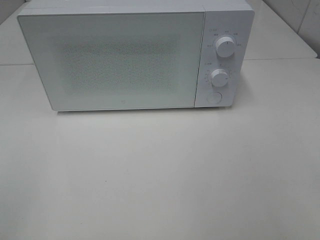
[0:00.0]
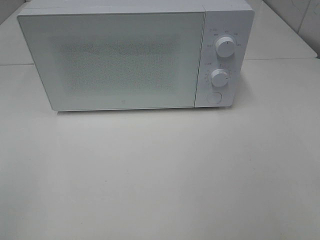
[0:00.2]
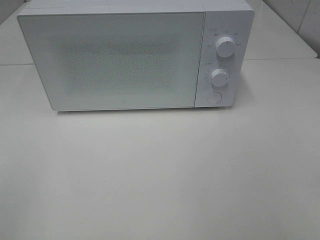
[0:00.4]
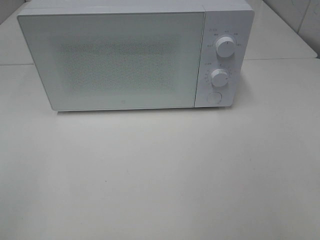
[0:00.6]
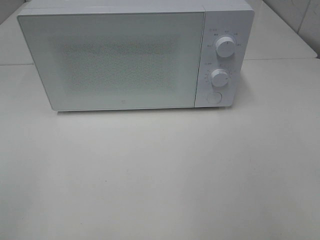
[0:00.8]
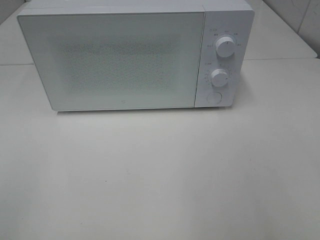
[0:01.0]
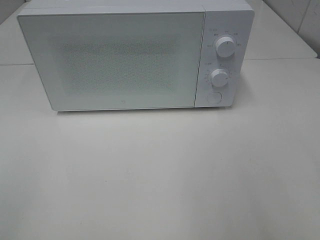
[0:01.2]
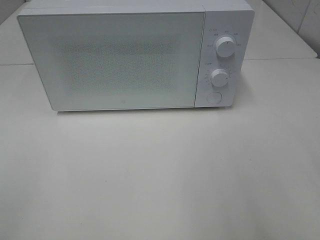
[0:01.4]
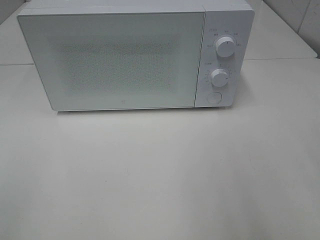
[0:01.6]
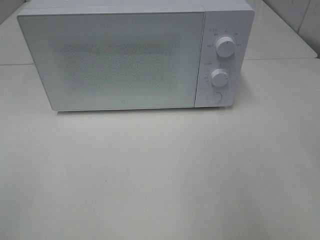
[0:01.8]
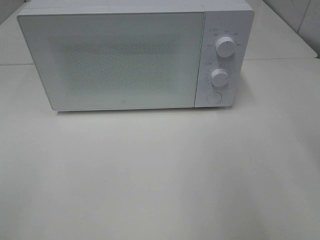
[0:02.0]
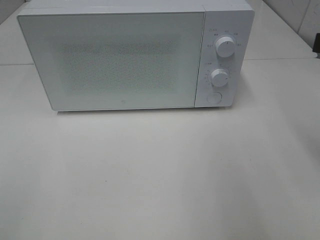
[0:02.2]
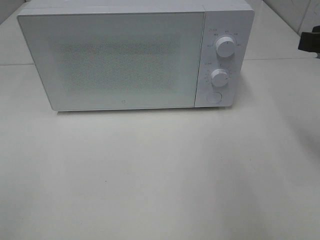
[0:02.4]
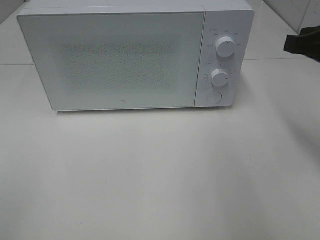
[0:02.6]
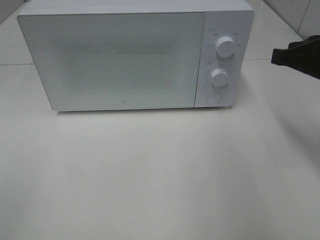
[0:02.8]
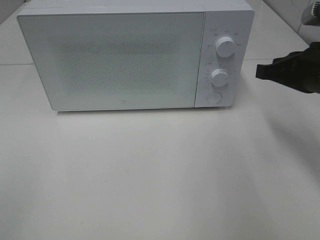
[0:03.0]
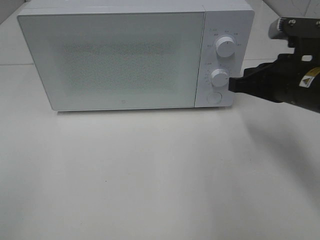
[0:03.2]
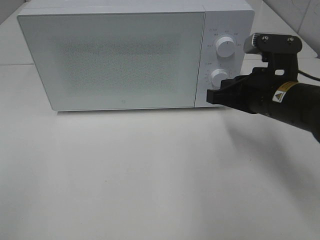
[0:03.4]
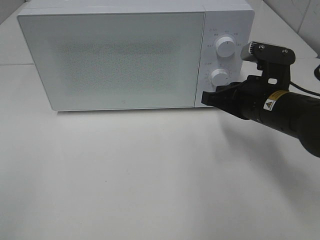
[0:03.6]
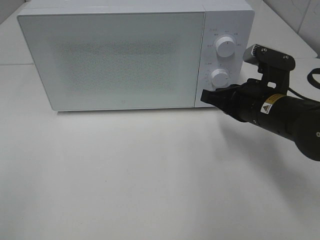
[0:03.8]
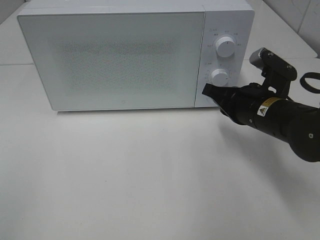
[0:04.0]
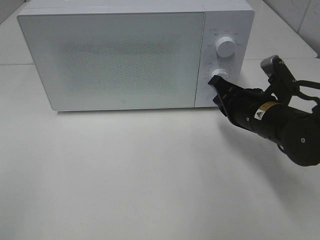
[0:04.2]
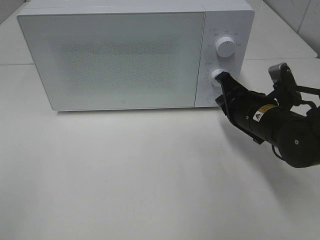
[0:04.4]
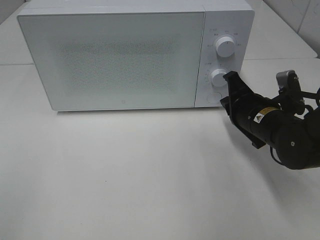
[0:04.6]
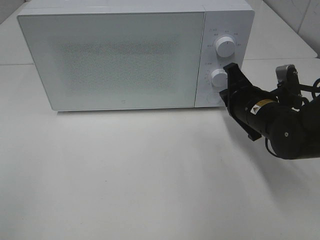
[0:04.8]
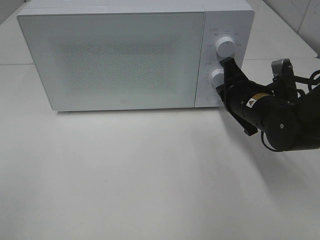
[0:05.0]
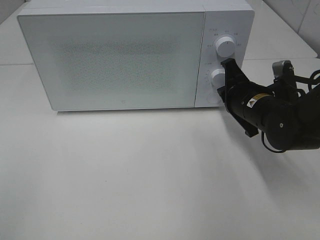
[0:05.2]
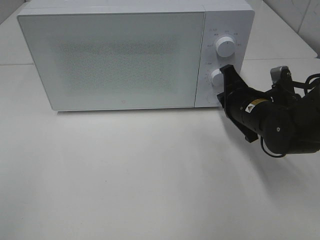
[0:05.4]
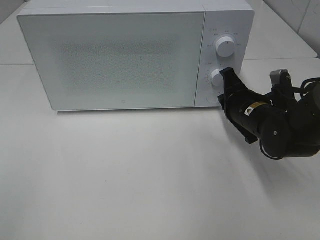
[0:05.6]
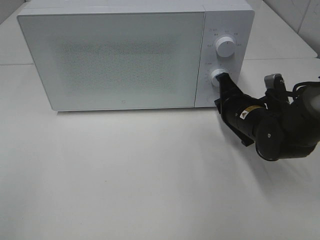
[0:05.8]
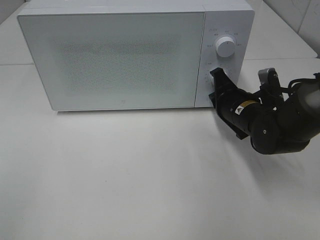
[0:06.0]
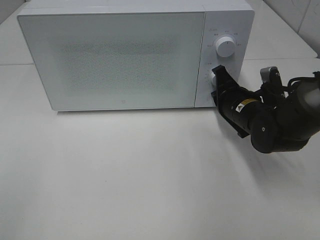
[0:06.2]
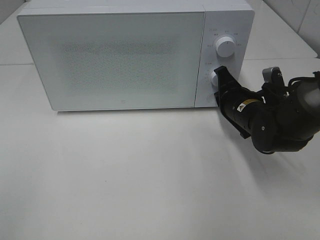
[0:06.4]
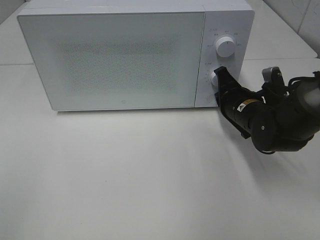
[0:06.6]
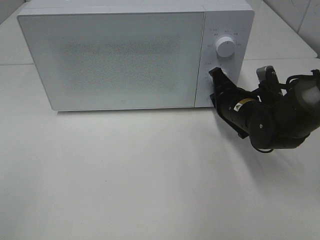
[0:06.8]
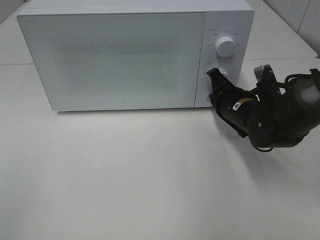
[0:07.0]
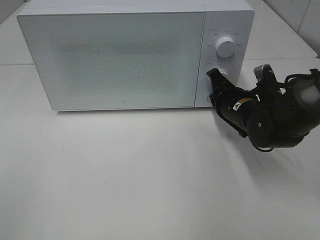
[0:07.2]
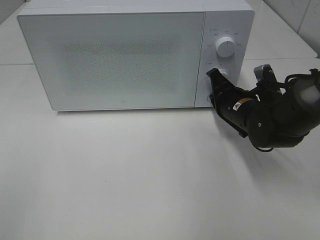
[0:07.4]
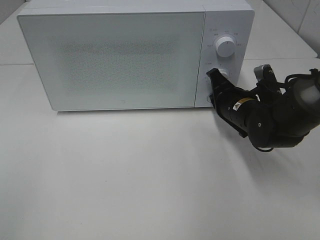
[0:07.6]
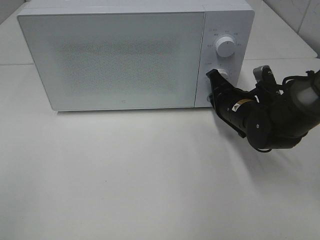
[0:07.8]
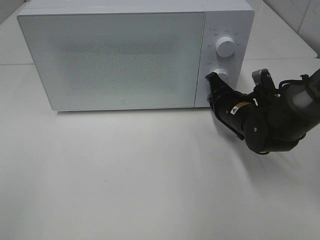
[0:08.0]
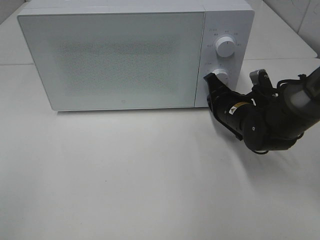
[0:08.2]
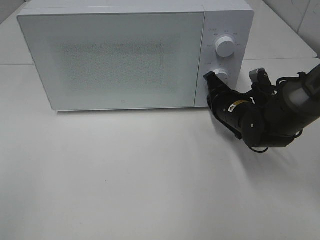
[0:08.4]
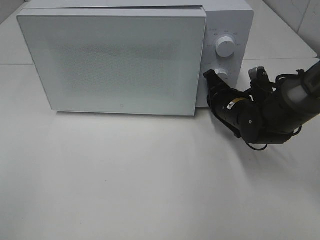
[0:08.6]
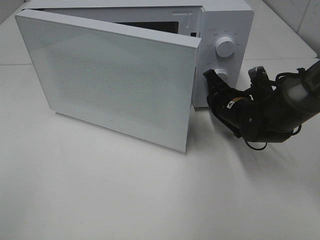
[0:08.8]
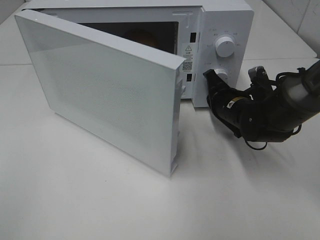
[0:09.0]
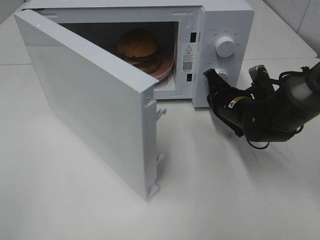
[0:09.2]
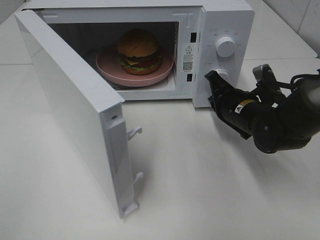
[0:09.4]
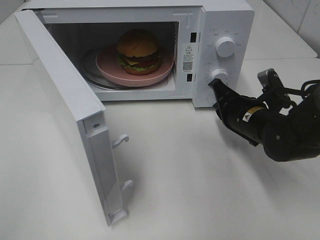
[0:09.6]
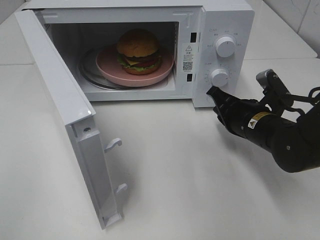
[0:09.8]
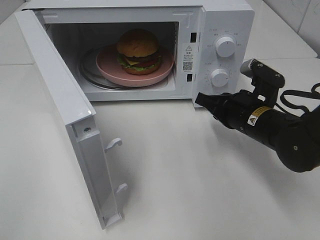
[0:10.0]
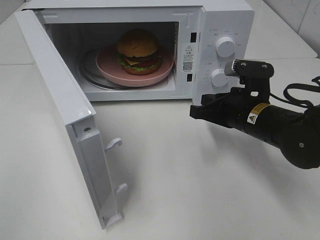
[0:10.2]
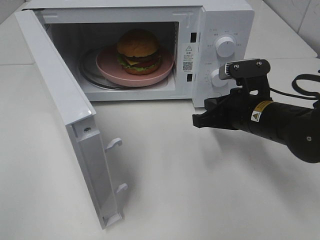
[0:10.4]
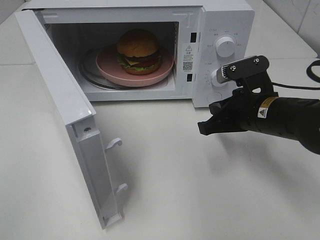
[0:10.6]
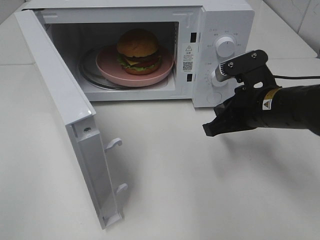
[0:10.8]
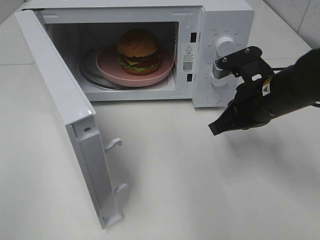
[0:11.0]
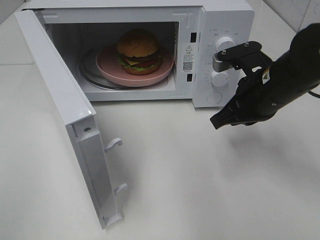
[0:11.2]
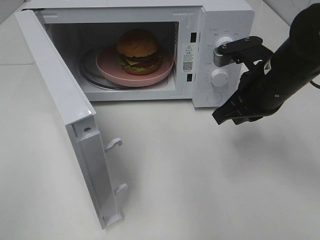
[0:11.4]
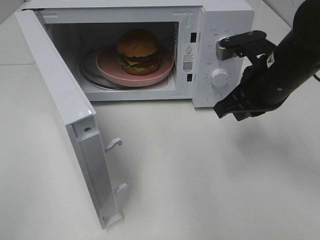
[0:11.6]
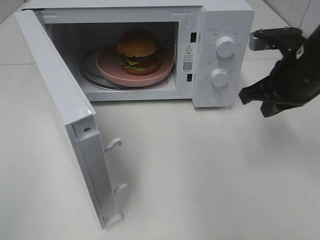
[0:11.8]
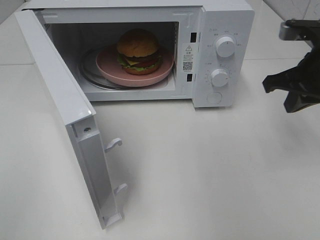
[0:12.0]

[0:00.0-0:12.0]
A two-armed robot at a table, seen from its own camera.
Task of the whole recording: Heat the burger.
Step, 0:00.0 to 0:09.4: Right hand: press the switch.
0:01.6 to 0:03.0: The right gripper is displaced forward and downward by roughly 20 cm, and closes up.
0:03.0 to 0:04.4: The right gripper goes roughly 10 cm downward and to the left.
0:04.4 to 0:07.6: There are only small adjustments of the grippers.
0:07.6 to 0:09.0: The grippers move only a little.
0:09.0 to 0:10.4: The right gripper heads backward, covering about 10 cm.
0:10.4 to 0:12.0: The right gripper is displaced upward and to the right by about 15 cm.

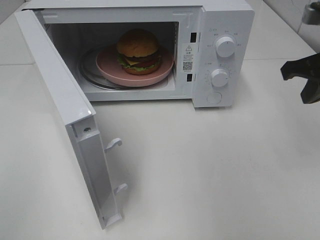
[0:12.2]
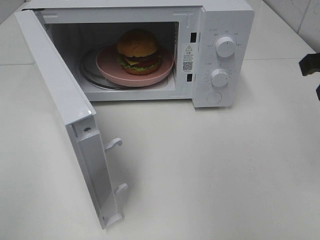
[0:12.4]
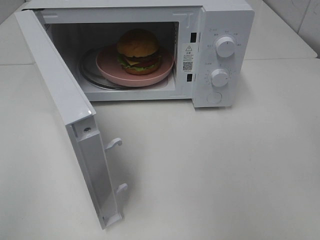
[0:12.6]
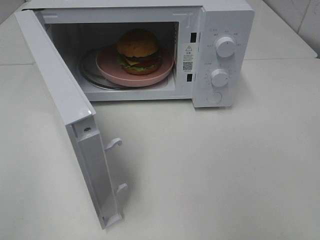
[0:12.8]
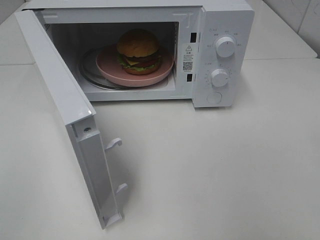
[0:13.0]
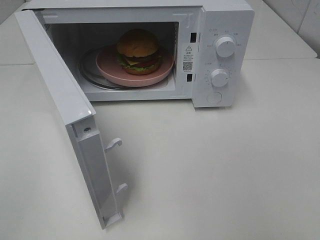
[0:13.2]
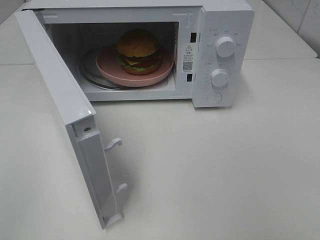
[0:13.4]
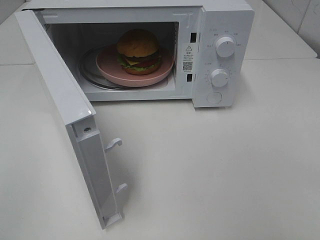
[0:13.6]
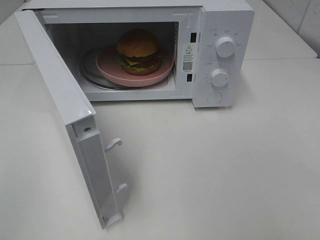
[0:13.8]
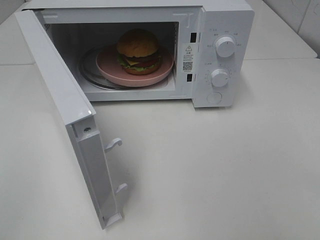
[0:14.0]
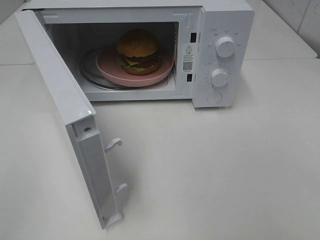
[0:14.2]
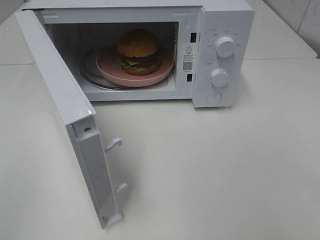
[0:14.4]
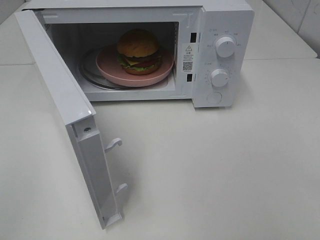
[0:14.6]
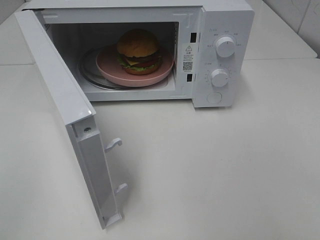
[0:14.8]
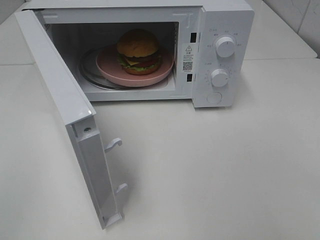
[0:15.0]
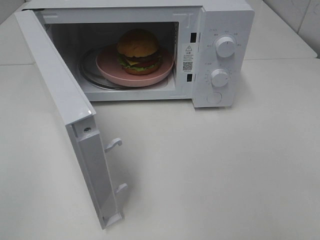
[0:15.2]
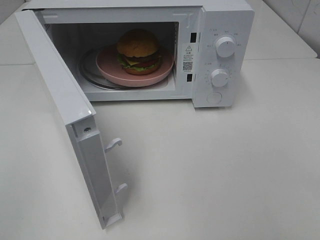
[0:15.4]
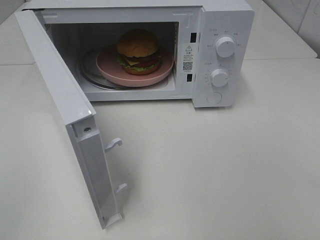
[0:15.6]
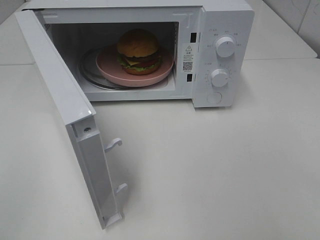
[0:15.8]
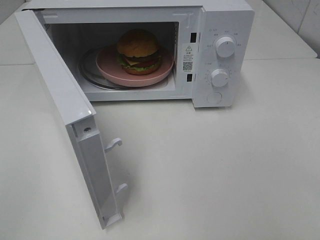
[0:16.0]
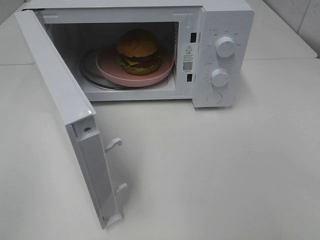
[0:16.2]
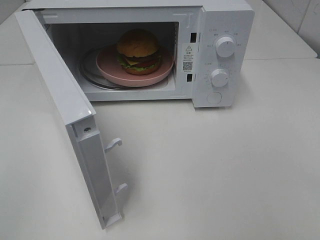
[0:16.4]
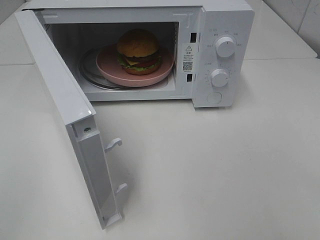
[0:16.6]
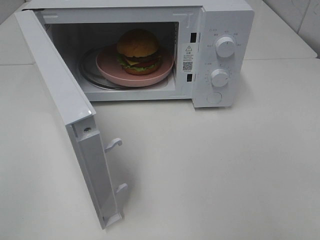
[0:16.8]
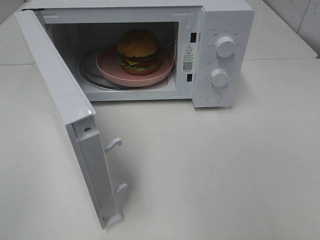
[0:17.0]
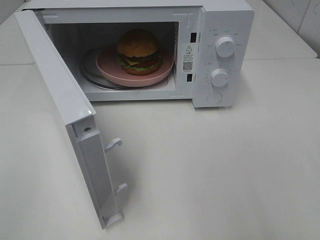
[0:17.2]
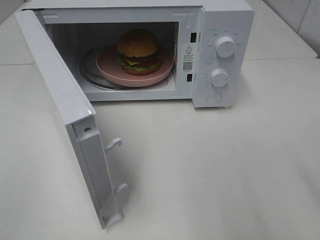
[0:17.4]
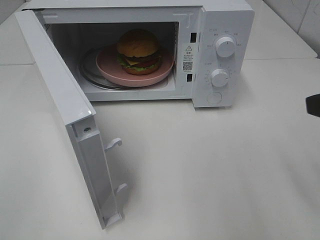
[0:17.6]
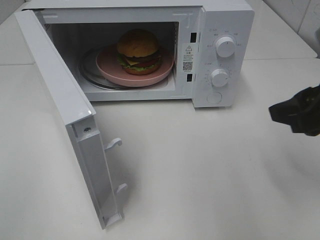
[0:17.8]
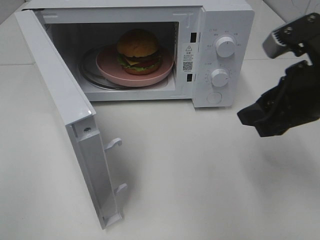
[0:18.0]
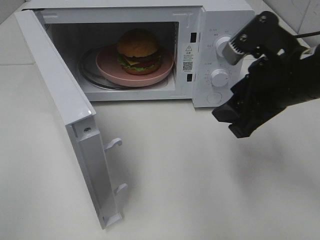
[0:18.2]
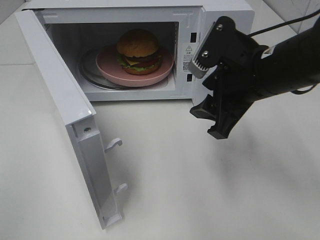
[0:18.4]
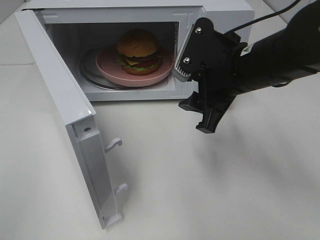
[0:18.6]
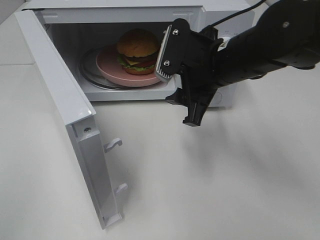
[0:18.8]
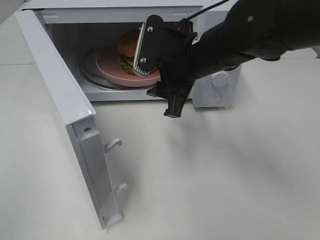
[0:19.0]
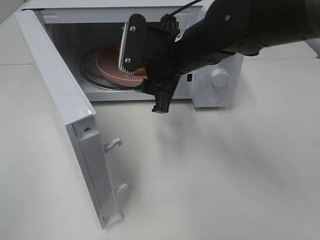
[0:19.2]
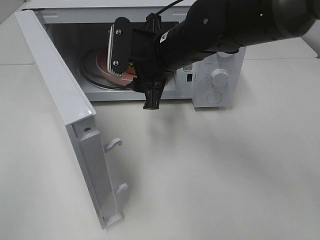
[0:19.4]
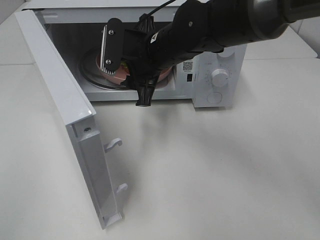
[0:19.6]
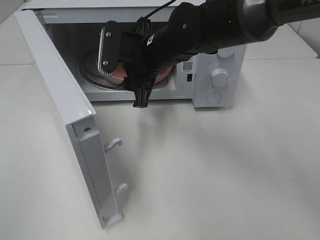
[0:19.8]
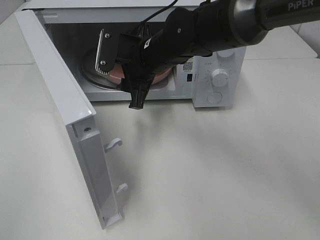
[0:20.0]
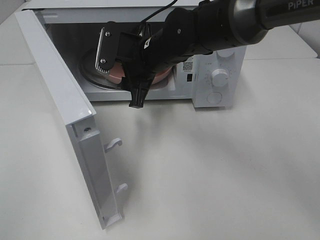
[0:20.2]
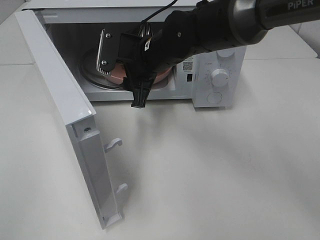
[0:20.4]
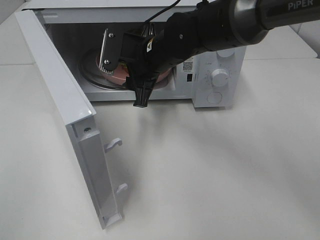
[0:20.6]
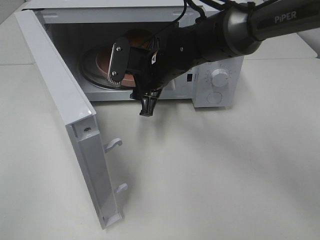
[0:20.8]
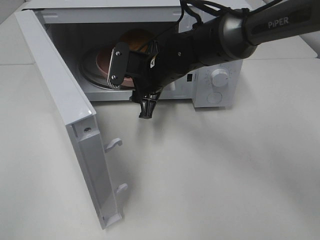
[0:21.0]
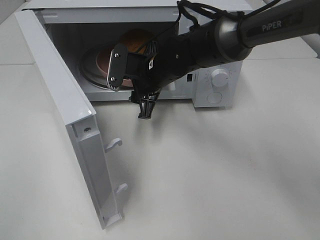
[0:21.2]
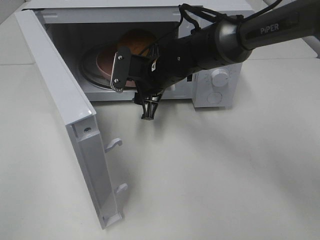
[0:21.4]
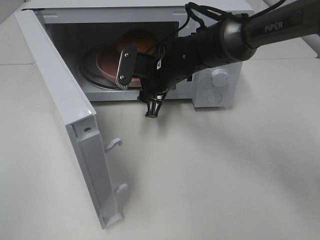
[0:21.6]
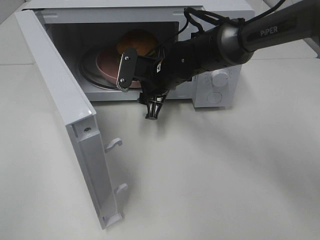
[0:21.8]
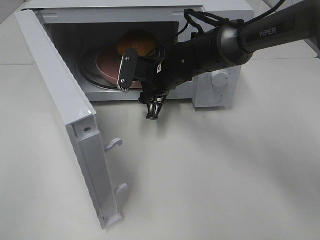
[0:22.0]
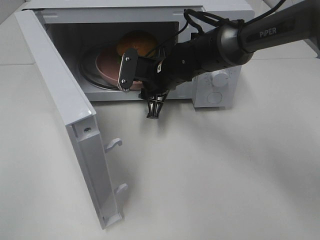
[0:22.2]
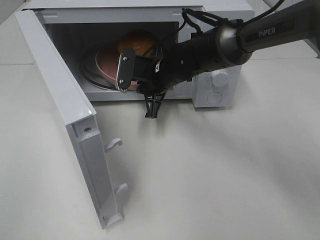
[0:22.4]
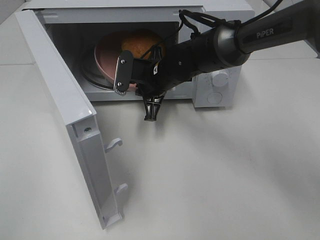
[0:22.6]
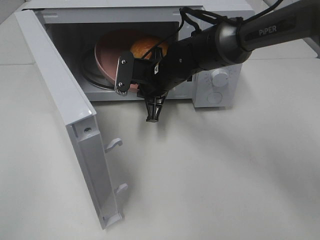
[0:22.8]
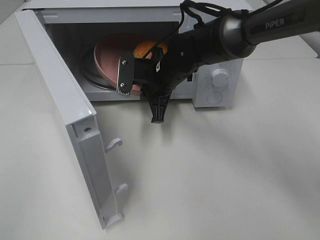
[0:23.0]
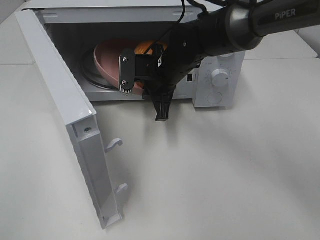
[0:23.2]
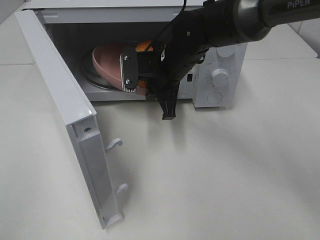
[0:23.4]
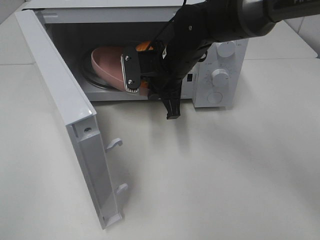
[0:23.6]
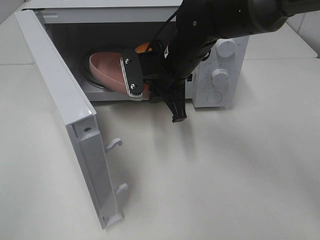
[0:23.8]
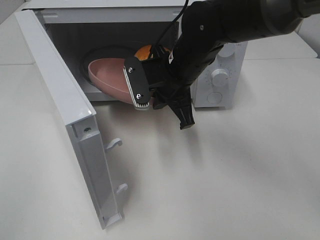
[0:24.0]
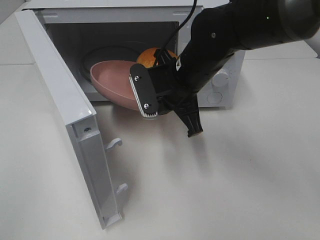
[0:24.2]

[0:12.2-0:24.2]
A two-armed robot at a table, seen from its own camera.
Task of the whole recording: Heat the burger.
Step, 0:12.2 to 0:22.6: Right hand: grab the plate with the hamburger.
0:12.2 to 0:13.8: The right gripper moves backward, approximately 25 cm.
0:15.2 to 0:16.6: The two grippers keep their place.
0:16.6 to 0:18.2: The right gripper shifts some 30 cm forward and to the left, and opens up.
0:18.2 to 0:19.8: The right gripper heads to the left and forward, covering some 20 cm.
0:19.8 to 0:21.2: The right gripper is displaced downward by about 5 cm.
0:21.2 to 0:22.6: The right gripper closes.
0:22.6 to 0:24.2: The right gripper goes about 10 cm backward and upward.
